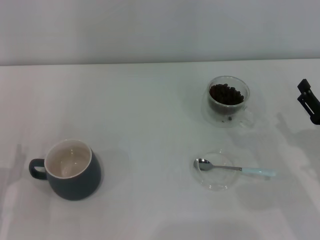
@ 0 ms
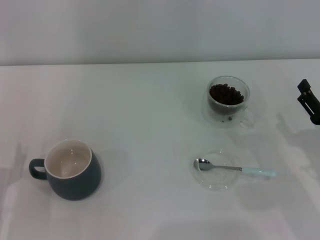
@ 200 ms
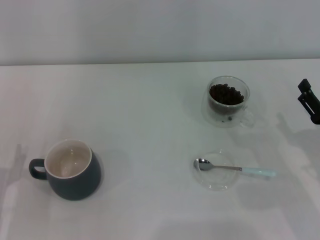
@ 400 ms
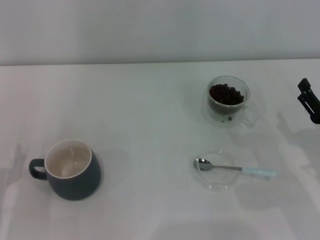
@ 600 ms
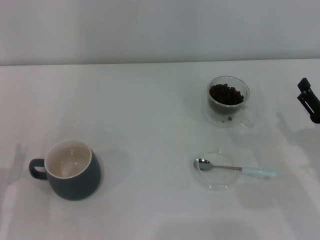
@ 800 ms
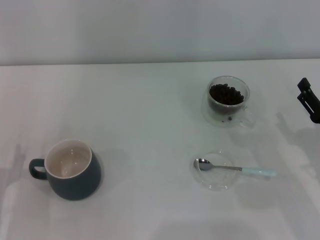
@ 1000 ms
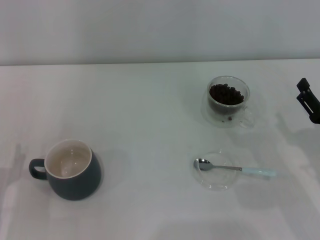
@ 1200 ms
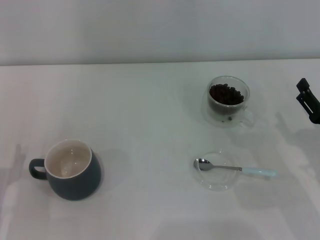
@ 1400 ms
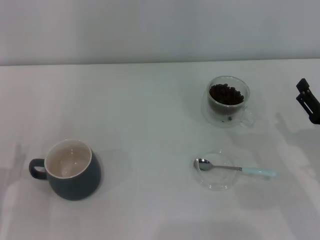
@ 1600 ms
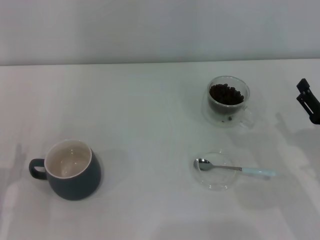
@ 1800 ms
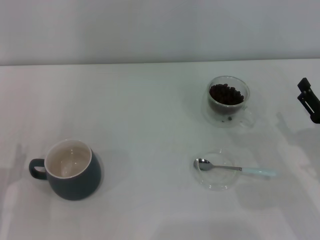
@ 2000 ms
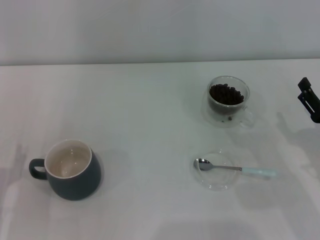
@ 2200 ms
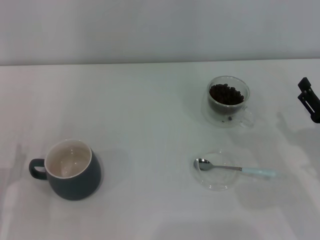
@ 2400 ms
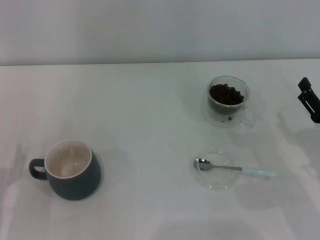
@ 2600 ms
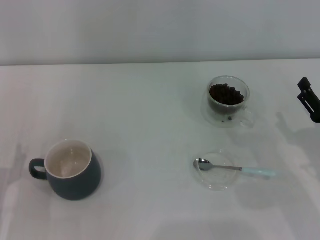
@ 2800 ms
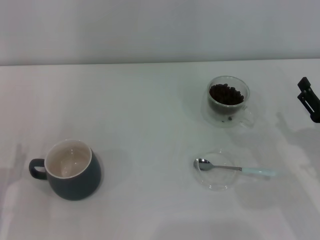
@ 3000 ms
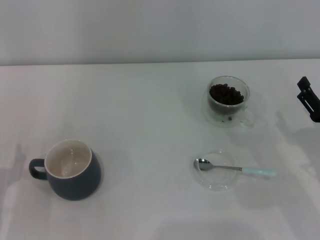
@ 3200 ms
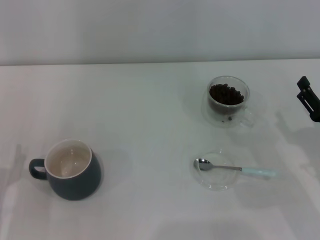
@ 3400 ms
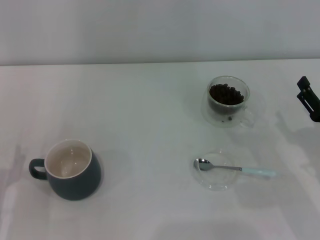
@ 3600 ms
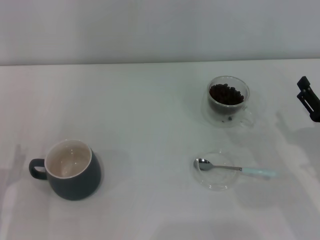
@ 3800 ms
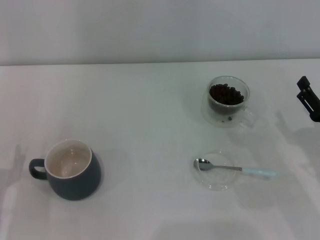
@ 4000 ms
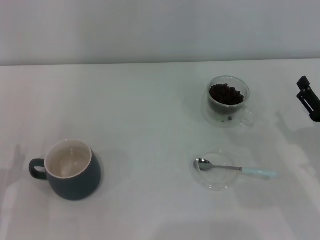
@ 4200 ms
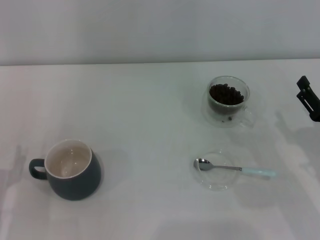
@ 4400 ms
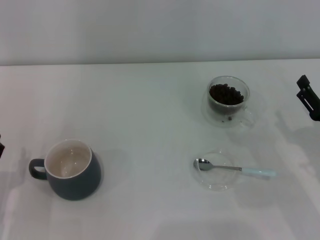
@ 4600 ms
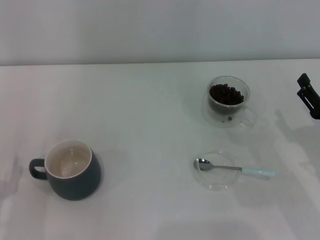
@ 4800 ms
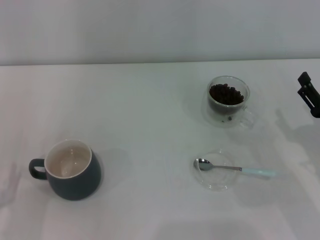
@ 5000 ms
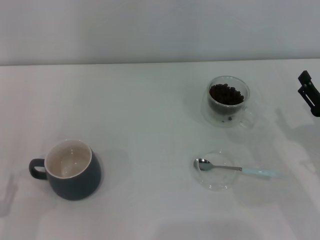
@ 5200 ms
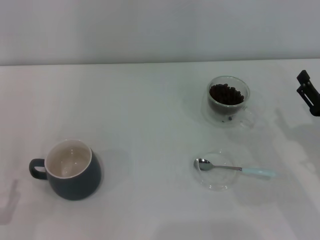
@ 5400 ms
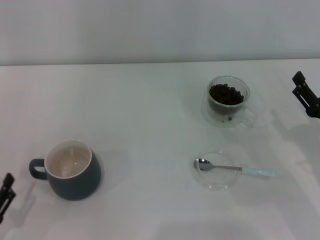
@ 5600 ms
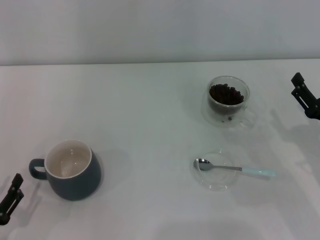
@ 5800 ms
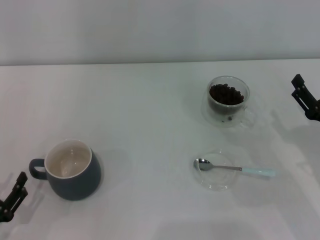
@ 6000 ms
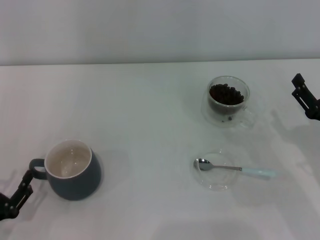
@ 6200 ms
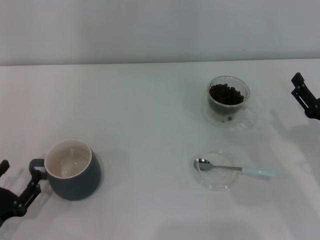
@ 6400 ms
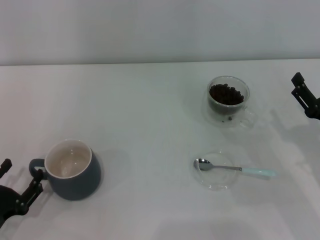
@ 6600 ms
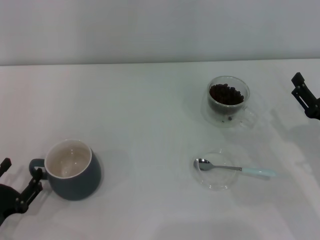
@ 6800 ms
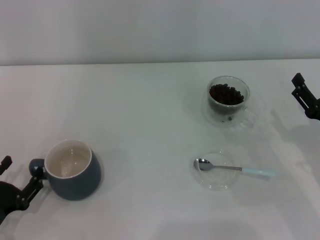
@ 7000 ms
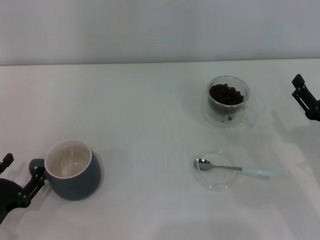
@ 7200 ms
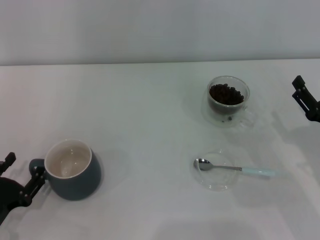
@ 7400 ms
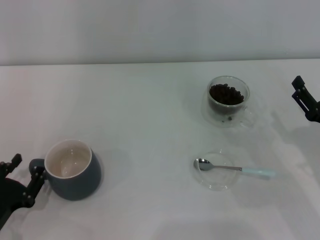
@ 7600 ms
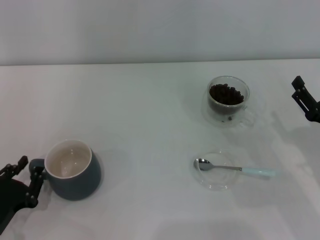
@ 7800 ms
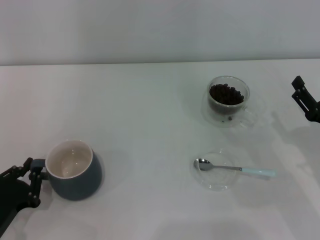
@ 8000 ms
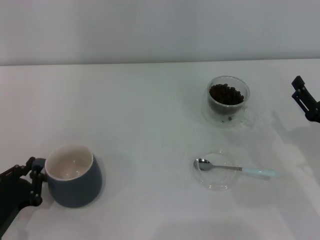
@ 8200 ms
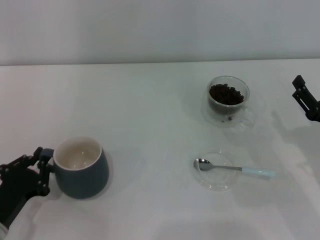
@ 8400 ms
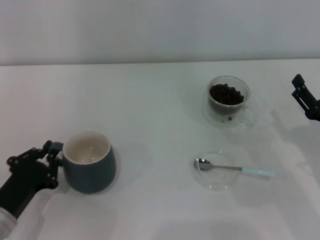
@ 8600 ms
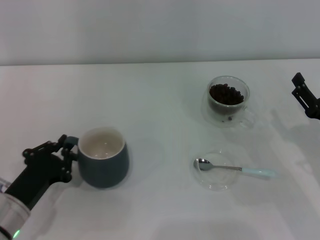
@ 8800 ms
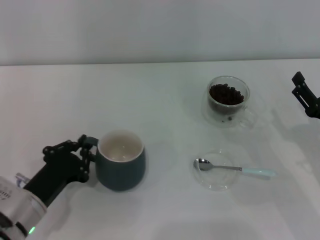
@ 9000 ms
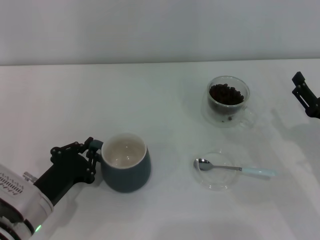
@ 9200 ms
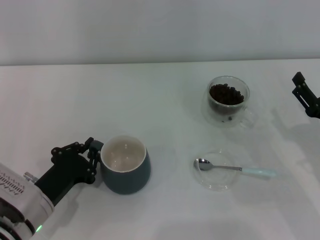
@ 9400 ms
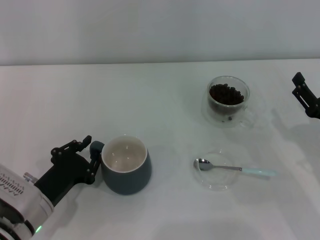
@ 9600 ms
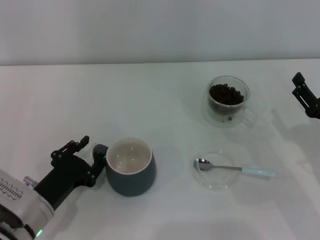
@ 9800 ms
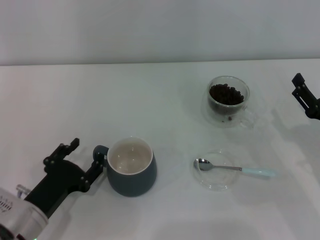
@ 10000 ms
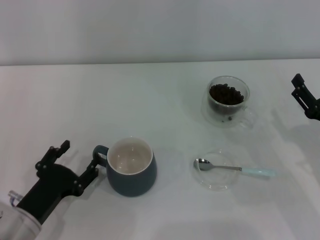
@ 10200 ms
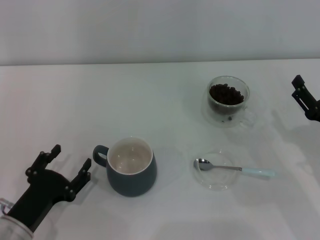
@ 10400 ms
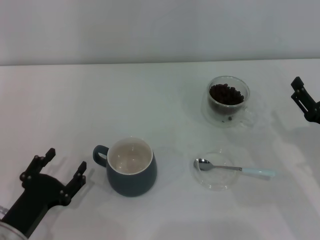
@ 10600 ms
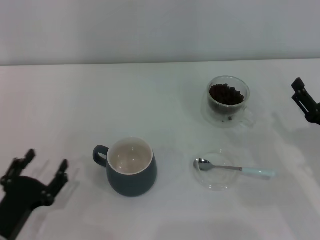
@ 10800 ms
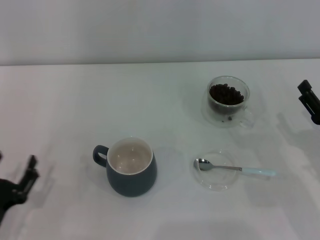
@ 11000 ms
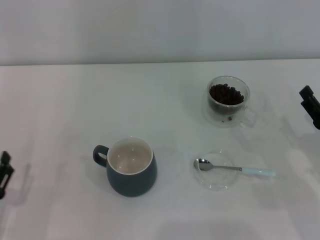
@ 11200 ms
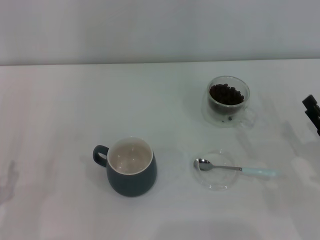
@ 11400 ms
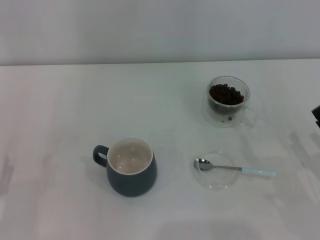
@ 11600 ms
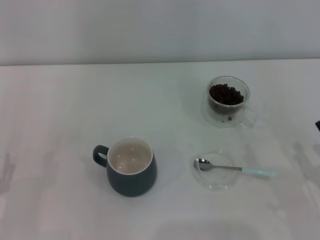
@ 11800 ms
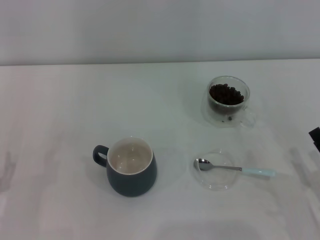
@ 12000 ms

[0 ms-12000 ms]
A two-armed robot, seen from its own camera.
Task of the whole recording: Use a blue spoon to take out the coffee beans from the glass and pour them into the gray cup.
Step, 0 ms to 10400 ms: Move the cup to the center of view with the left gripper.
0 ms to 4400 ms: The two grippers keep their place.
4400 ms to 6000 ms: The left gripper goes approximately 5 cm backward.
6000 ms to 7600 ms: There are only small adjustments of the grippers.
7600 ms to 9000 ms: The left gripper goes approximately 10 cm to the right and forward, and closes.
9000 ms to 10400 ms: The left gripper opens its fingers.
10400 ms to 12000 ms: The left gripper travels to the left by approximately 5 cm; the right gripper is displaced backward by about 10 cm.

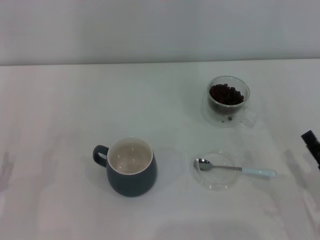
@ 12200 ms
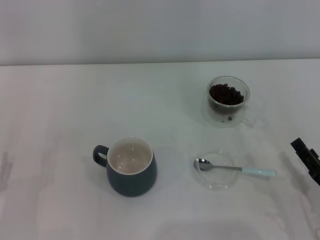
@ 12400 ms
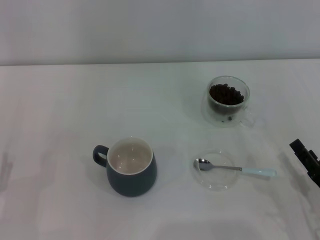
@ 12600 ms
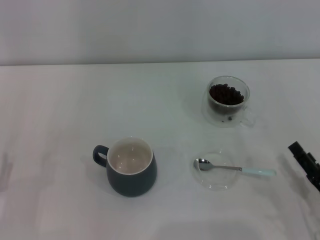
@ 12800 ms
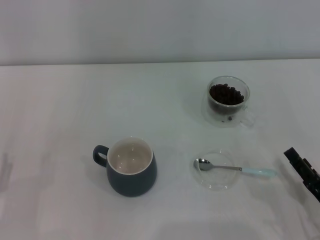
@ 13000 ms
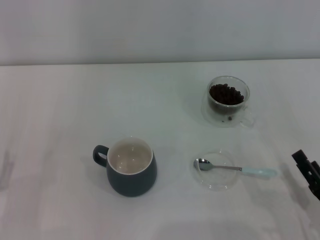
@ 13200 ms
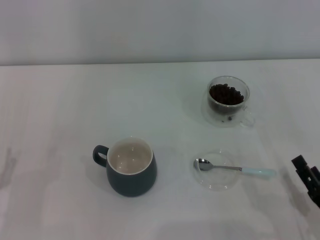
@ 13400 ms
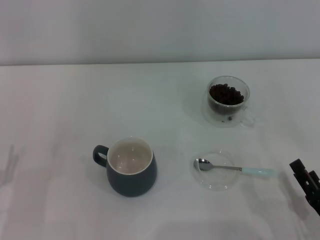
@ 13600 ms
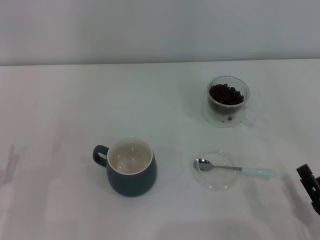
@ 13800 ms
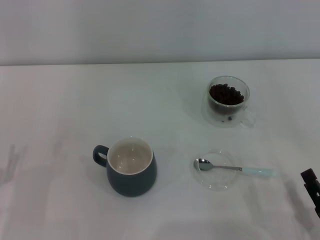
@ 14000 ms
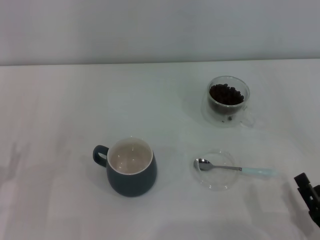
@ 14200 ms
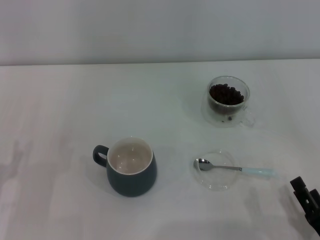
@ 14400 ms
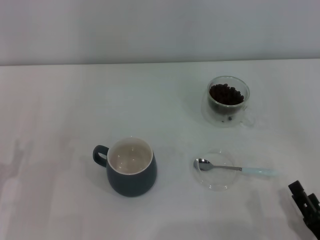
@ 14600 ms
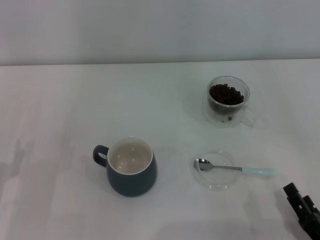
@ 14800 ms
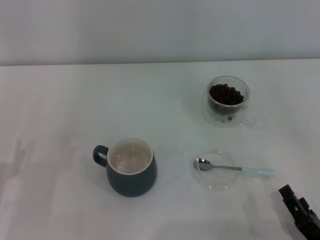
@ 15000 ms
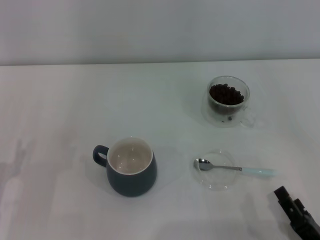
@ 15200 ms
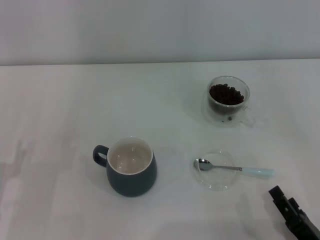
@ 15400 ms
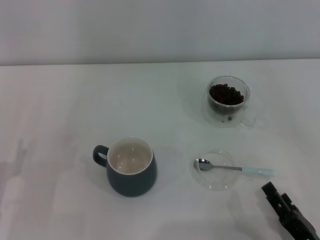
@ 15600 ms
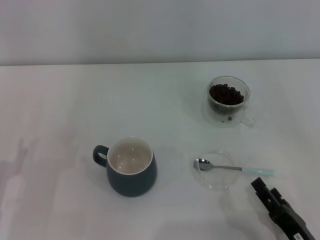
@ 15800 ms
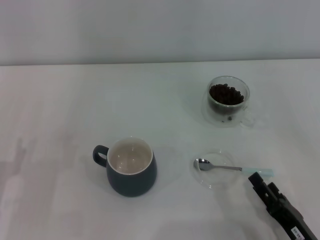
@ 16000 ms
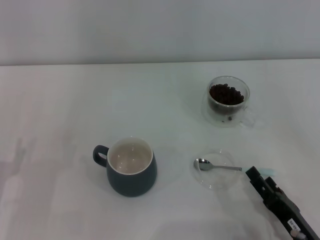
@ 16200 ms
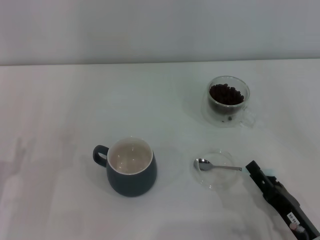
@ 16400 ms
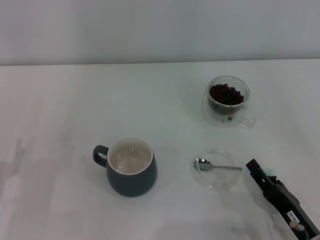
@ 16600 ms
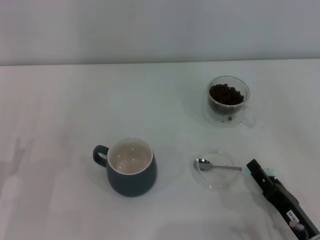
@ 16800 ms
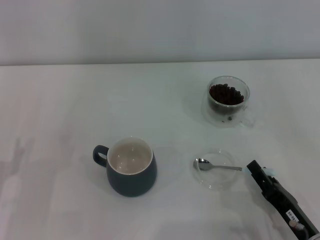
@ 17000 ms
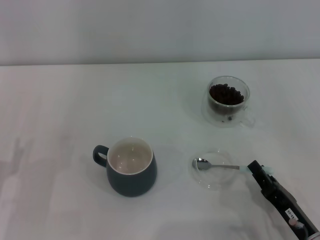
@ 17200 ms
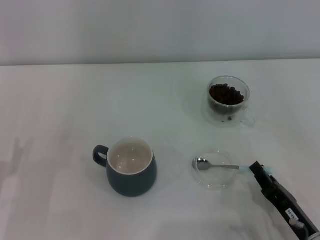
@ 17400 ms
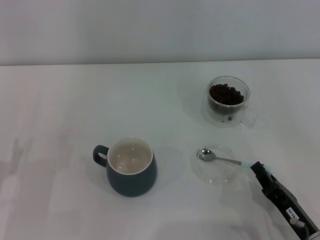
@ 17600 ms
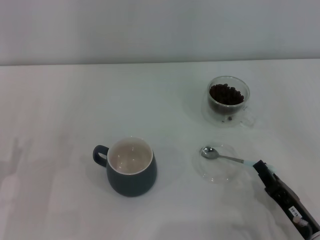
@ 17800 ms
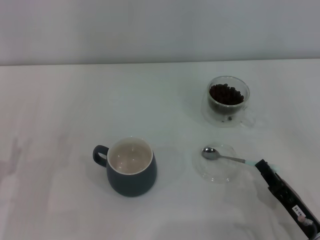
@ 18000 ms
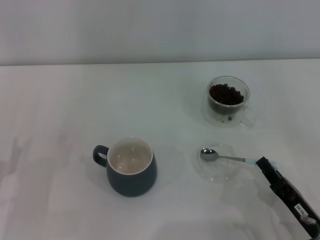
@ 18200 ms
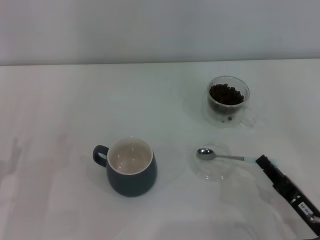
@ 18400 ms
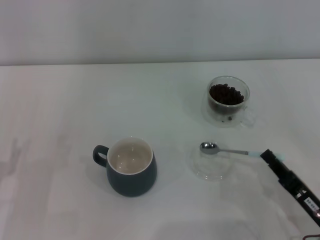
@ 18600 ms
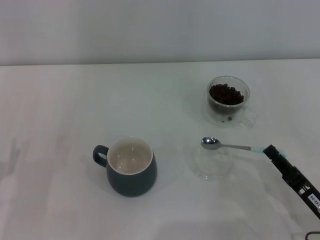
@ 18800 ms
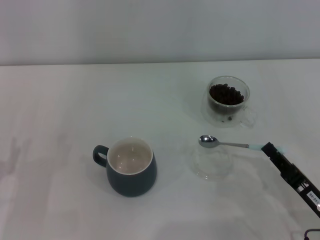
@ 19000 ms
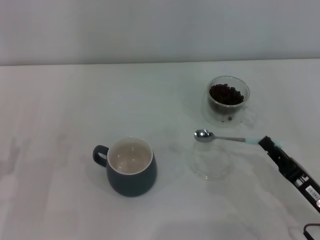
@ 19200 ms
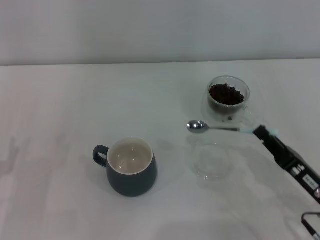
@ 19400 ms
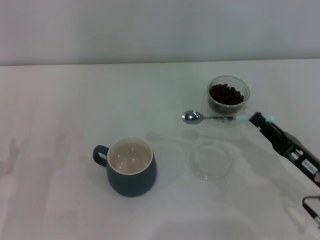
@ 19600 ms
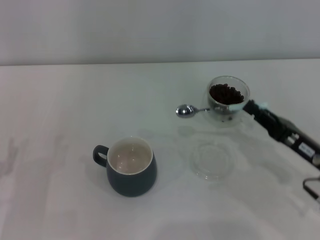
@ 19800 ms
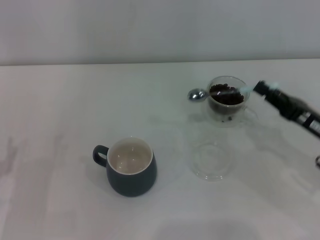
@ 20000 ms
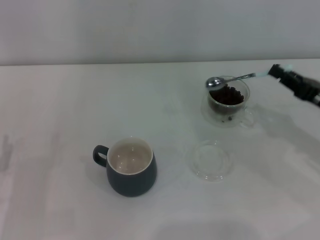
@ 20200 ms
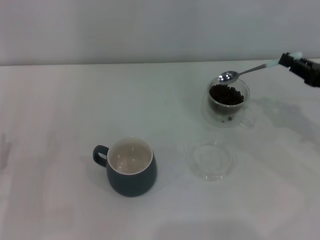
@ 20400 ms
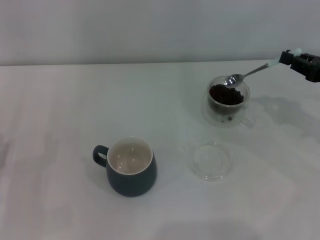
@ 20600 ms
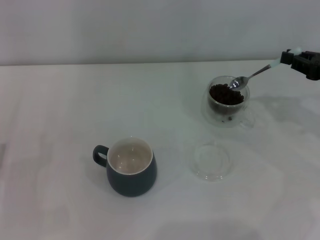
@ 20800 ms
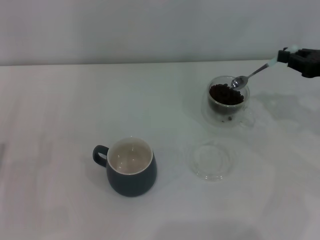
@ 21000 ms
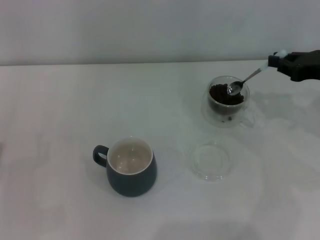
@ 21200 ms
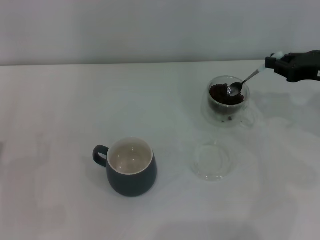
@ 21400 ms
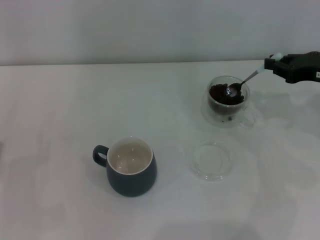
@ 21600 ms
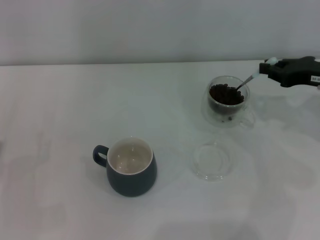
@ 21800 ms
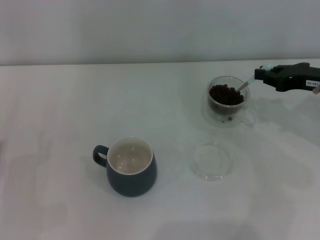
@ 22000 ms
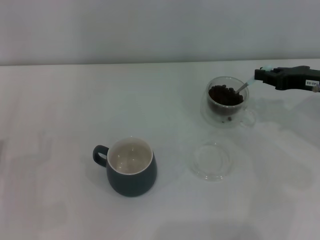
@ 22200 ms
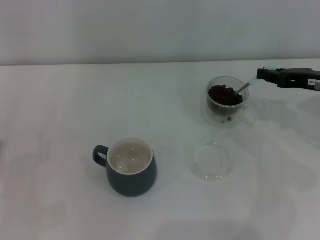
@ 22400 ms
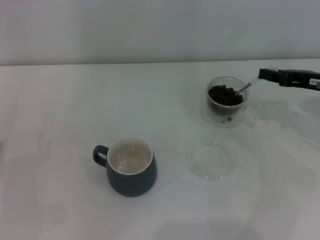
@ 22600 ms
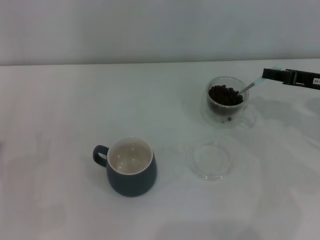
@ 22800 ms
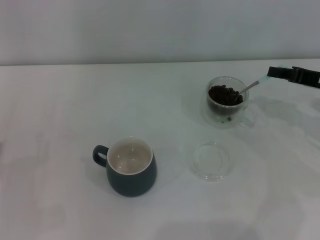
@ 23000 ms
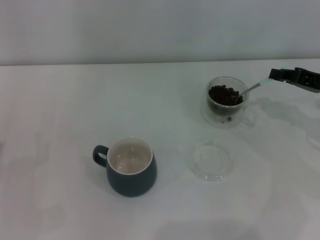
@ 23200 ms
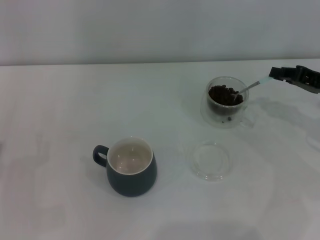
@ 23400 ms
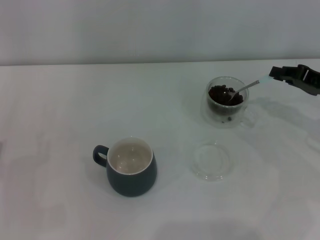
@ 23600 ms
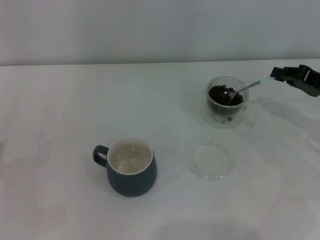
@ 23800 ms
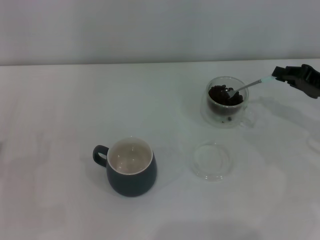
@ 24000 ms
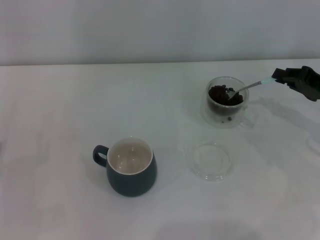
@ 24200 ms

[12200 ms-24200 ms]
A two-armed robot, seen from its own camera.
Task of the whole recording: Use a blue spoon to take out the coffee beans from the glass and pour them into the gray cup.
Step, 12200 ms to 18800 ms: Pick up the spoon with the right gripper.
12200 ms to 13800 ms: The right gripper shifts about 5 cm backward.
13800 ms to 15200 ms: The grippers stay close to where they were, moving slightly.
15200 ms to 16600 ms: The right gripper travels forward by about 5 cm.
16600 ms to 18200 ms: The right gripper closes.
18200 ms to 19800 ms: The right gripper goes about 10 cm forward and upward.
19800 ms to 21200 ms: The right gripper heads forward, upward and to the right, covering about 15 cm.
21200 ms to 22600 ms: There are only small adjustments of the grippers.
